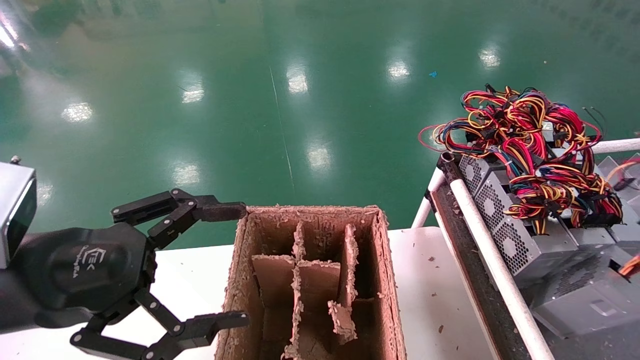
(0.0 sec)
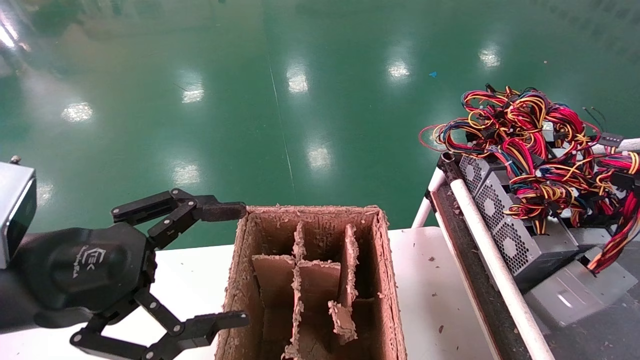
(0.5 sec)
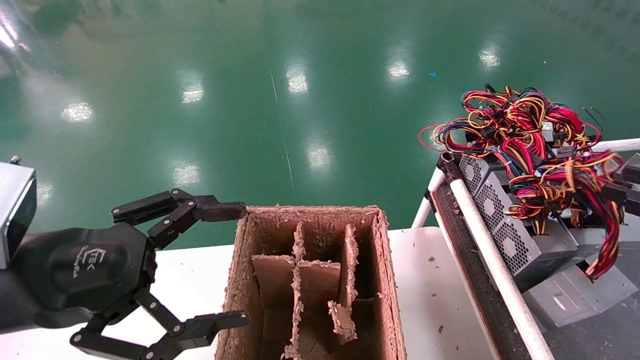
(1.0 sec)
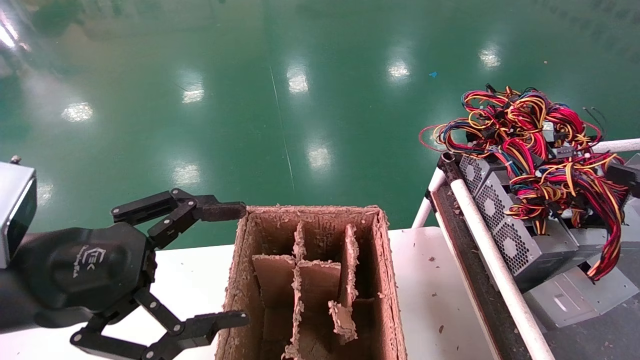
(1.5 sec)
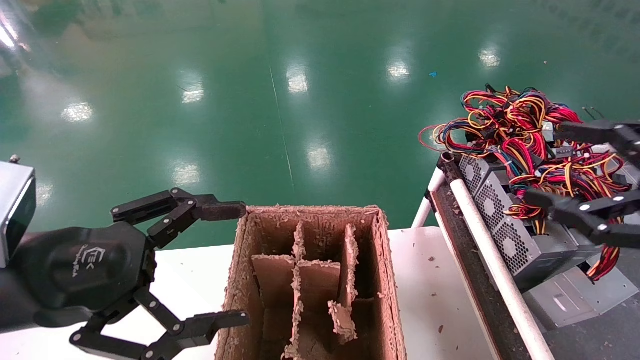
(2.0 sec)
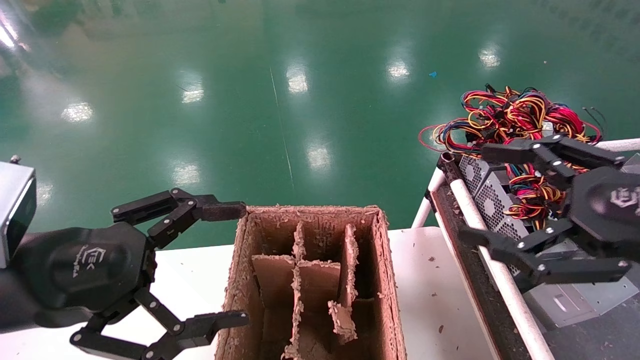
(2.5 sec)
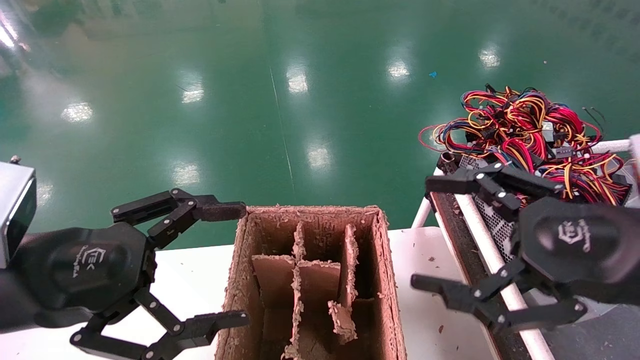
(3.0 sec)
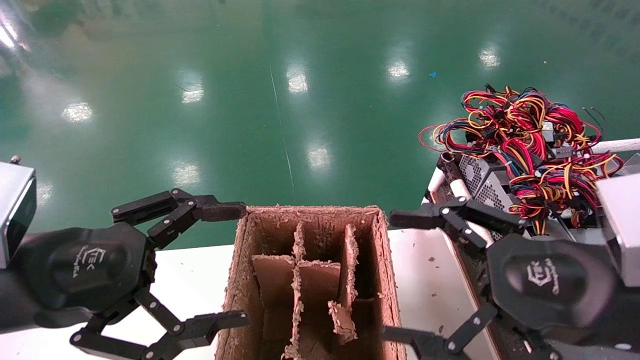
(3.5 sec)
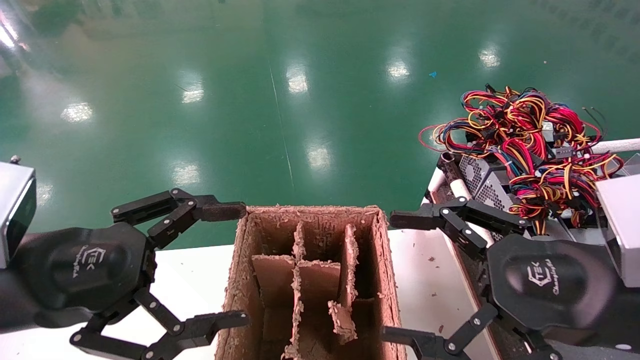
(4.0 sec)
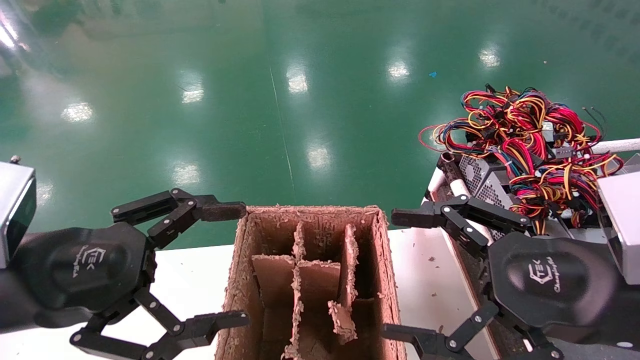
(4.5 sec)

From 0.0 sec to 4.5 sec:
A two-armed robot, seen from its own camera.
From 0.0 sec to 2.0 sec: The right gripper is displaced to the left by approximately 10 cm, and opens.
From 2.0 sec to 4.5 sec: The right gripper travels to the left and downward by approximately 15 cm.
